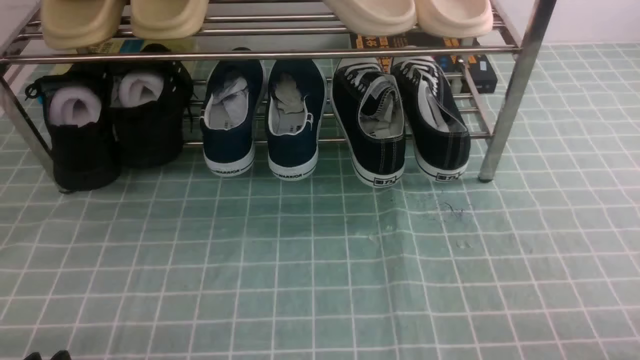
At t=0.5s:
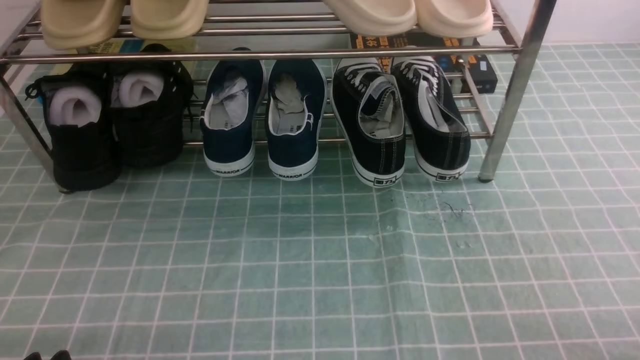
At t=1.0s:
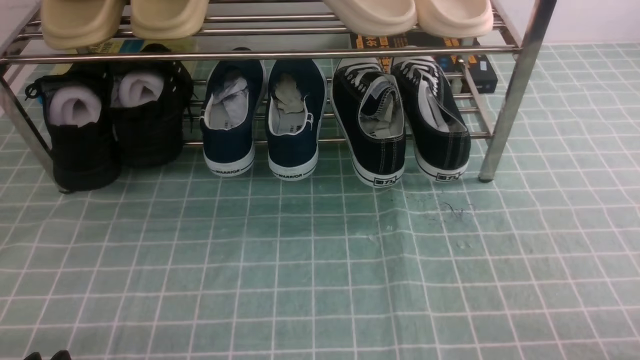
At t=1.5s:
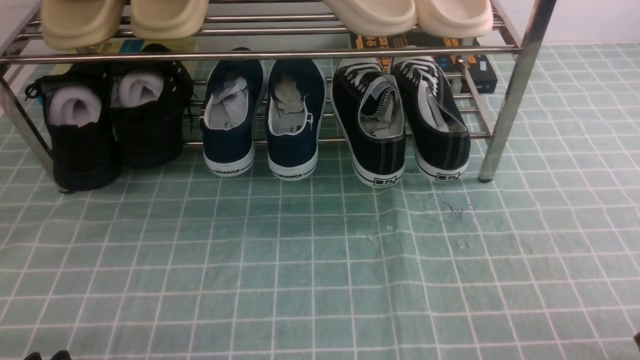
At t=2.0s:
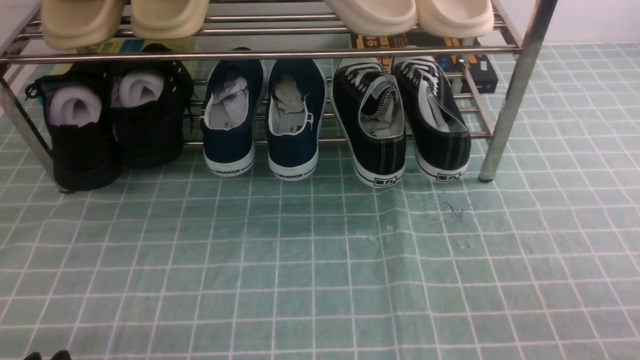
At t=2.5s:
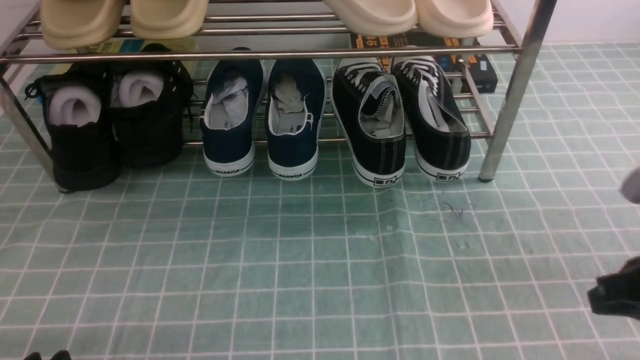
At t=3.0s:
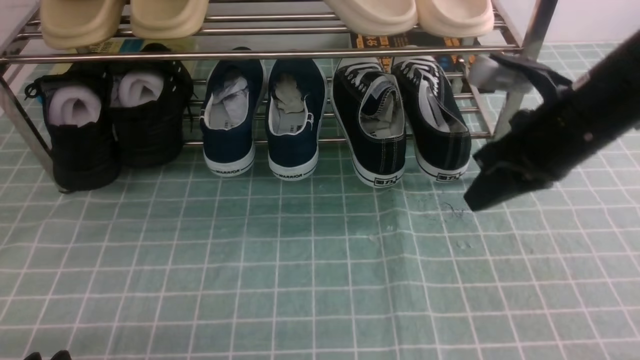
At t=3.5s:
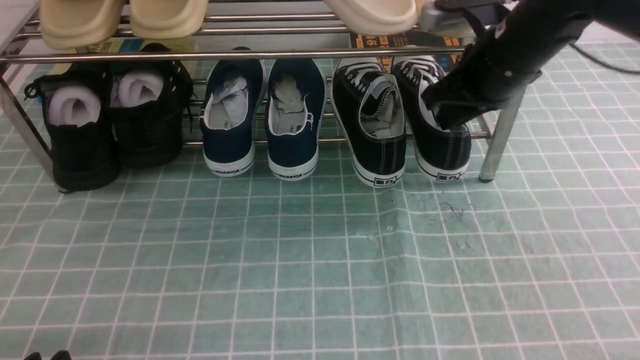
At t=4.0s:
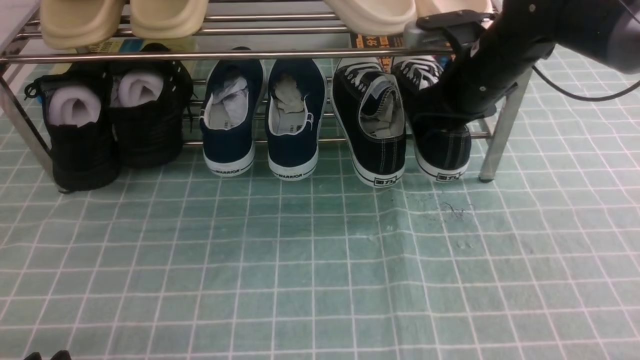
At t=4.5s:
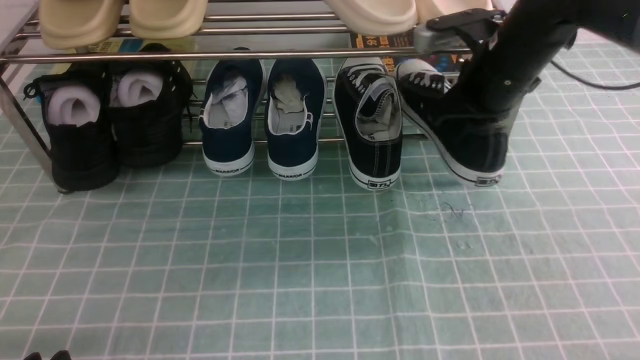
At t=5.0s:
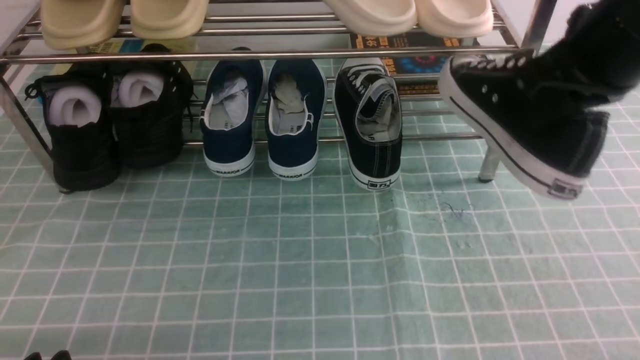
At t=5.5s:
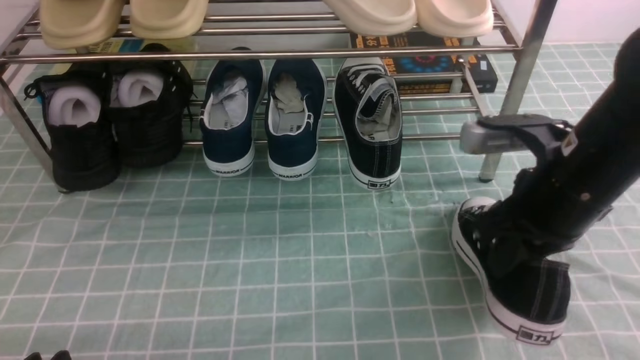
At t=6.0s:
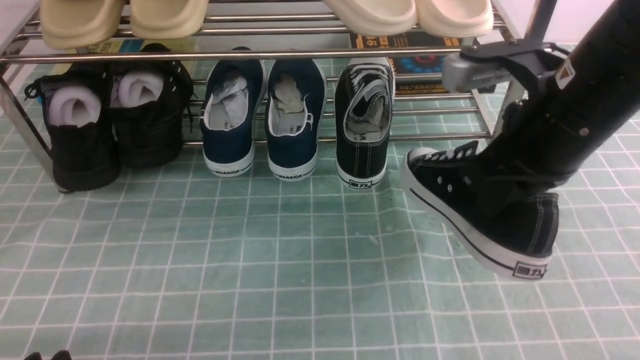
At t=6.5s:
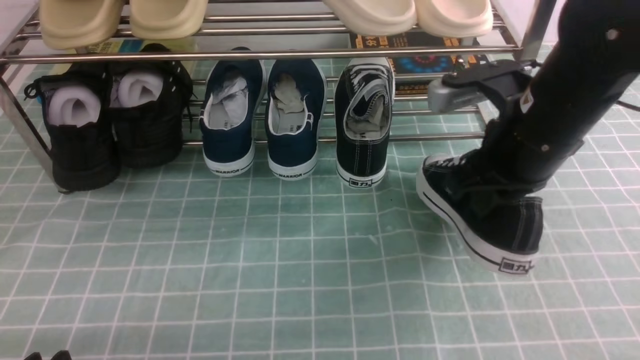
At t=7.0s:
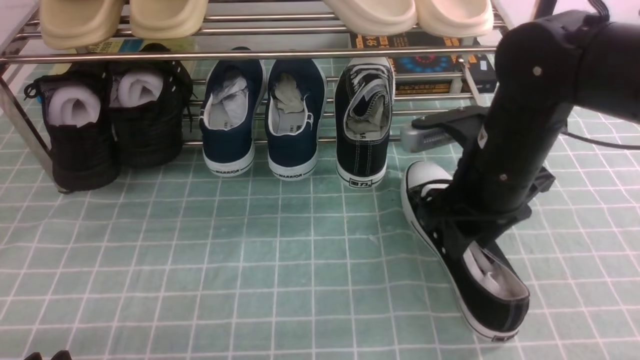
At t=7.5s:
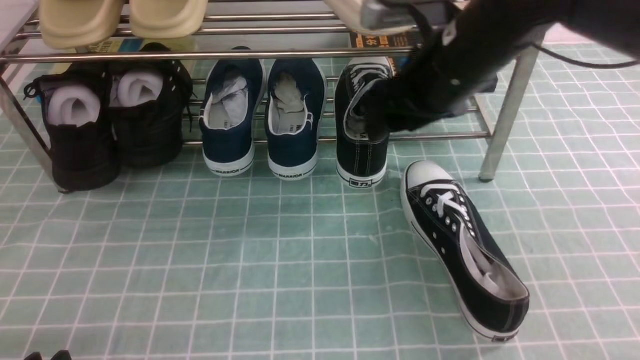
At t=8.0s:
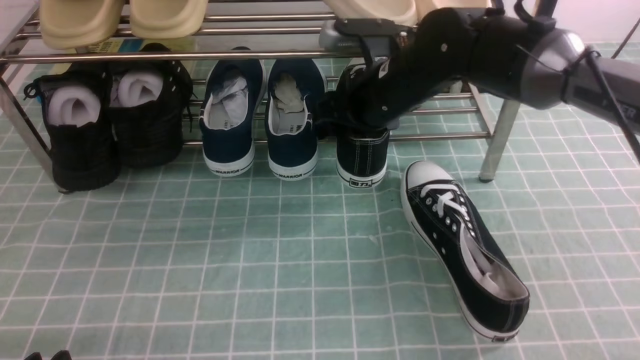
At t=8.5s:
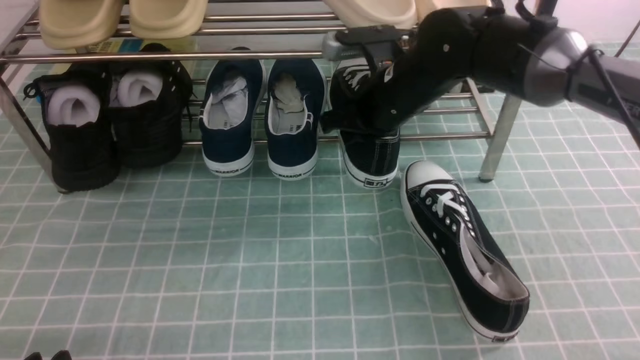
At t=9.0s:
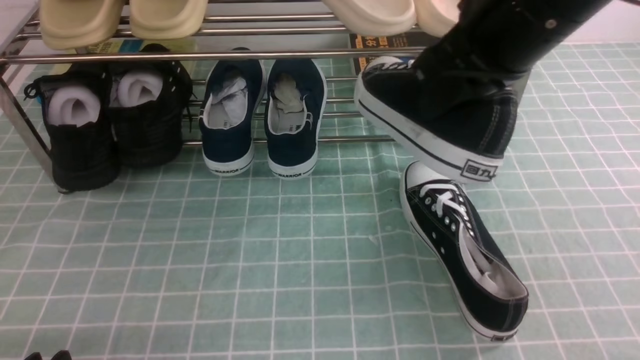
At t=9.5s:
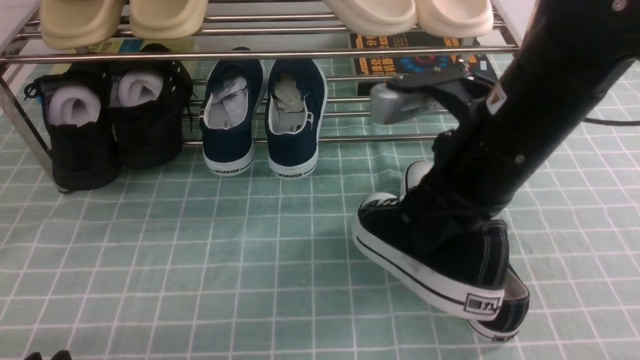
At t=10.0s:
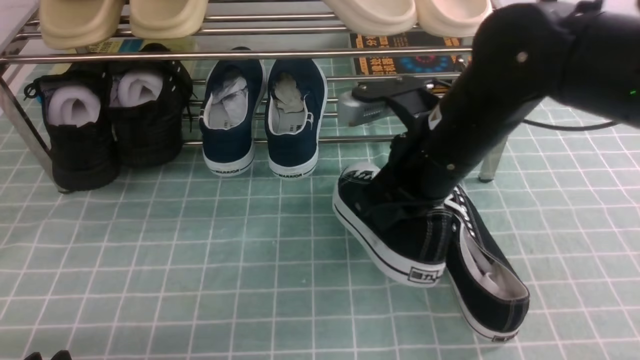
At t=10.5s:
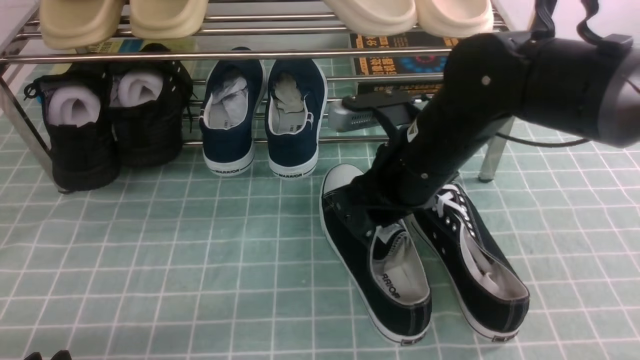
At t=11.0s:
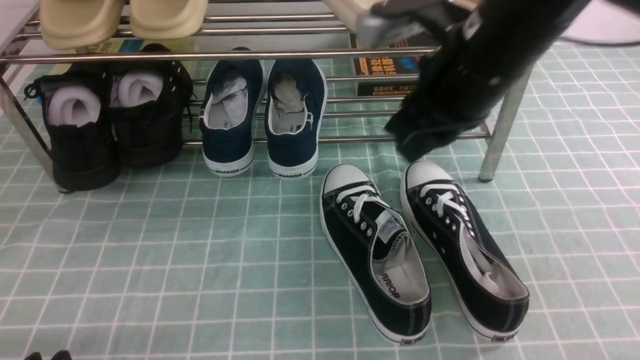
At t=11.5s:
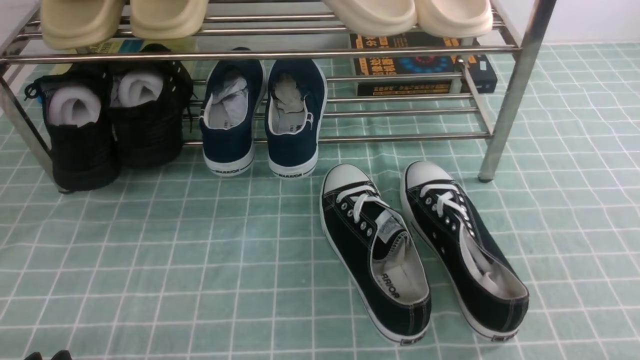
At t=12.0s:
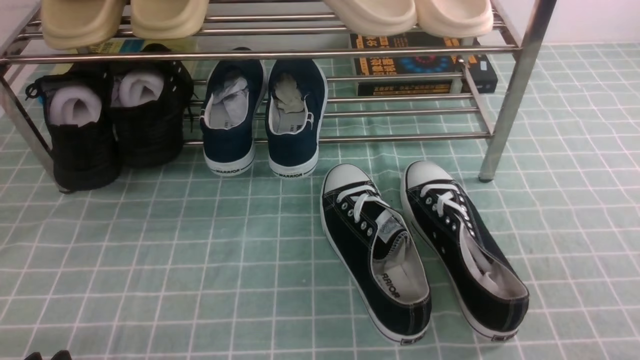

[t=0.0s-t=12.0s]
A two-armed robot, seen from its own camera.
Step, t=0.0s to t=4.0s: use the right arm to clamp a shoe on the right side of the shoe rack.
Step, t=4.5s to t=7.0s: use the right arm to take out the clamped shoe from the shoe rack and put it down.
Step, t=7.5s to t=8.0s: use the right arm to clamp a shoe on the right side of the shoe rack.
Step, t=8.5s to t=10.5s: use the right arm to take out the clamped shoe from the shoe rack and put it down.
t=2.0s to t=4.0s: The right gripper moves forward, about 35 cm, and opens its fingers.
t=4.0s to t=6.0s: The right gripper goes some 15 cm backward, and closes its fingers.
t=6.0s to t=8.0s: The right gripper moves forward, to the left and downward, some 20 cm, and opens.
t=8.0s to t=10.0s: The right gripper moves backward, some 10 cm, and closes.
t=10.0s to t=12.0s: The right gripper is displaced backward and to the right by about 30 cm, and opens and closes again.

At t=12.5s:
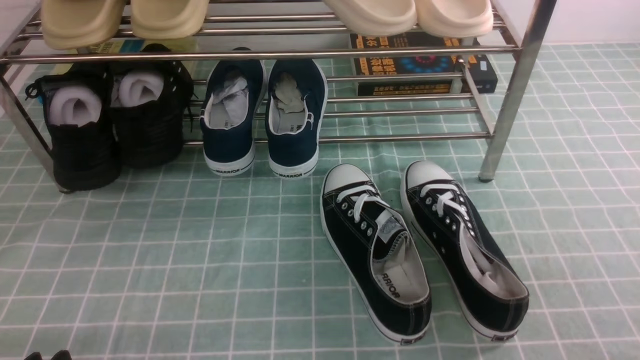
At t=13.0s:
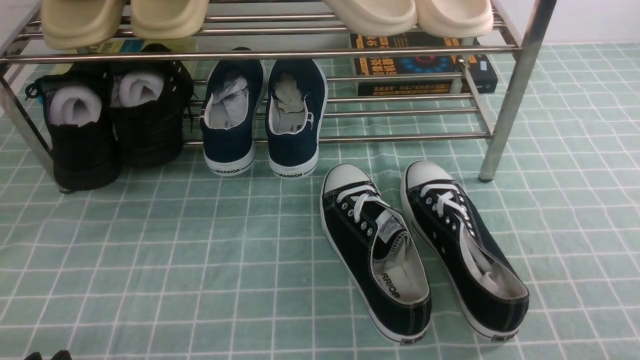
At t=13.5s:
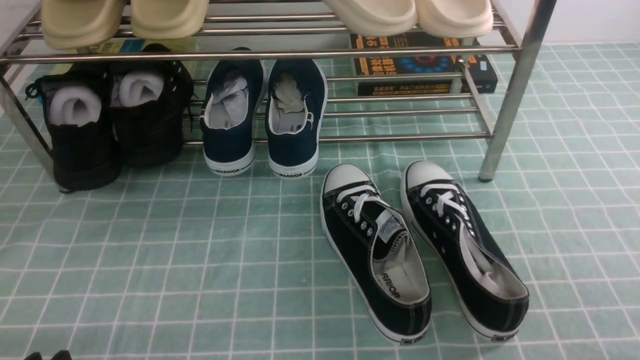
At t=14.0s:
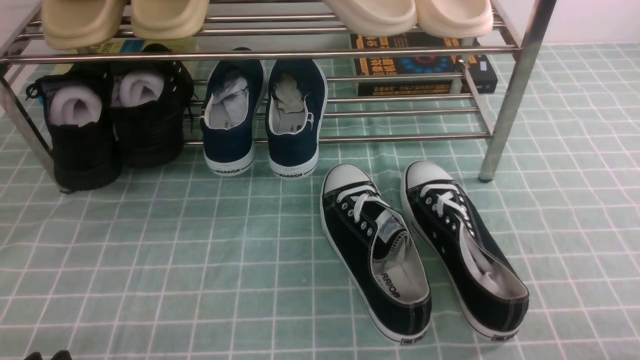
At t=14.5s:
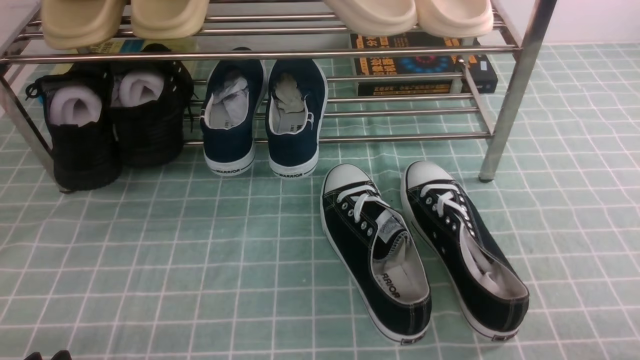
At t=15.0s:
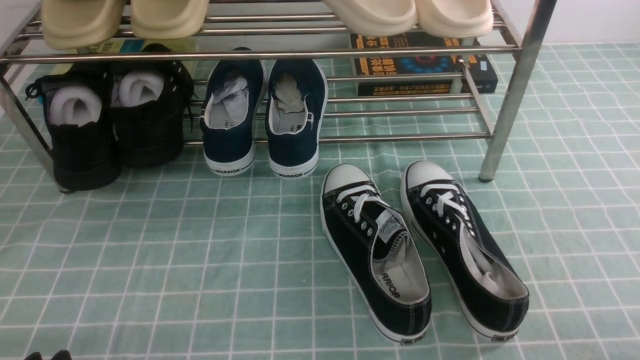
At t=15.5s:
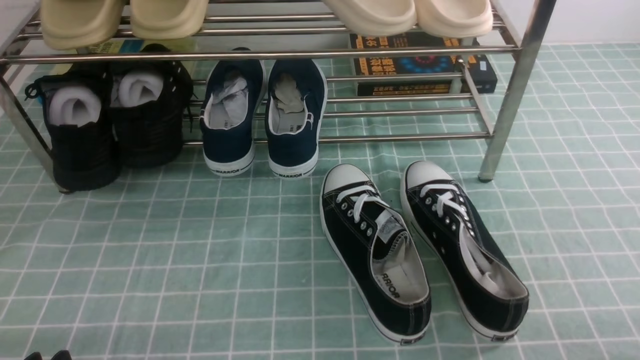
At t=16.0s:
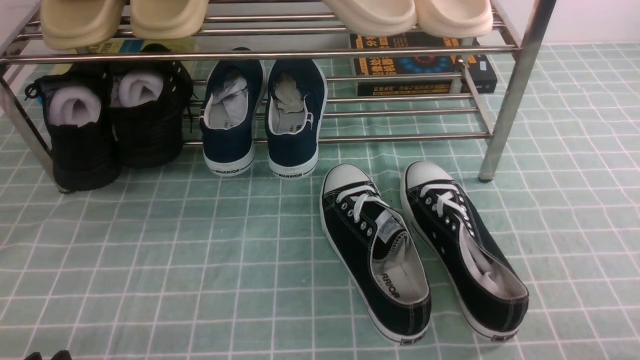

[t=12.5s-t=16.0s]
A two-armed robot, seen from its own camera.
t=14.5s to t=16.0s: Both grippers stay put.
